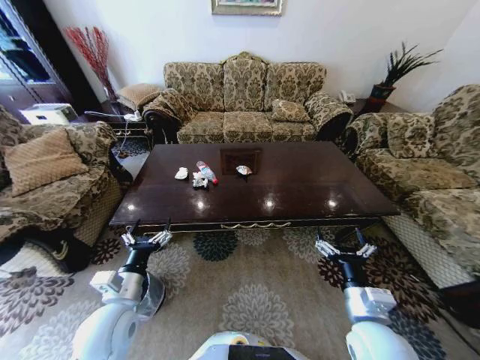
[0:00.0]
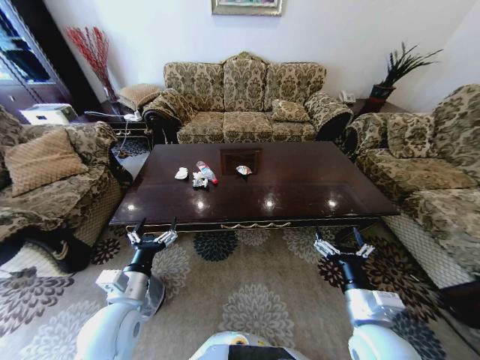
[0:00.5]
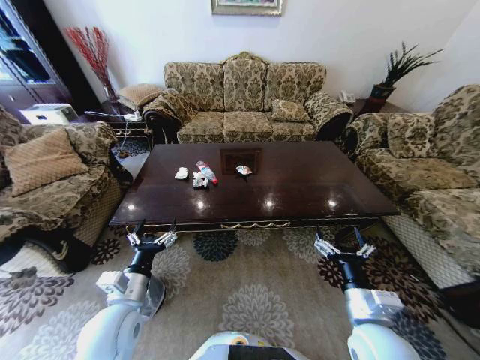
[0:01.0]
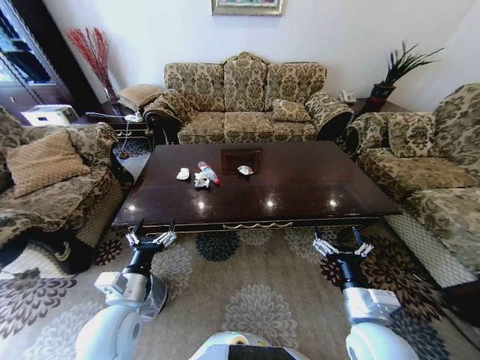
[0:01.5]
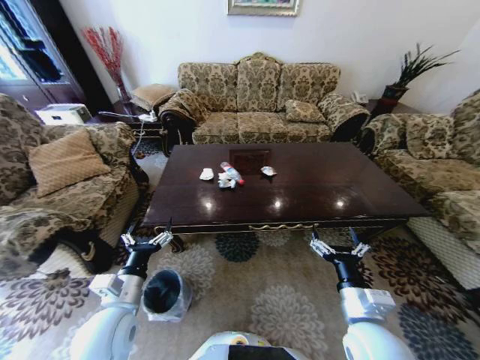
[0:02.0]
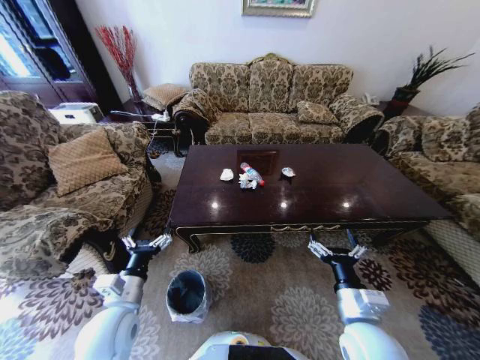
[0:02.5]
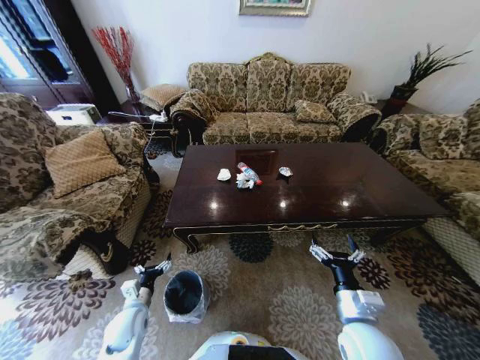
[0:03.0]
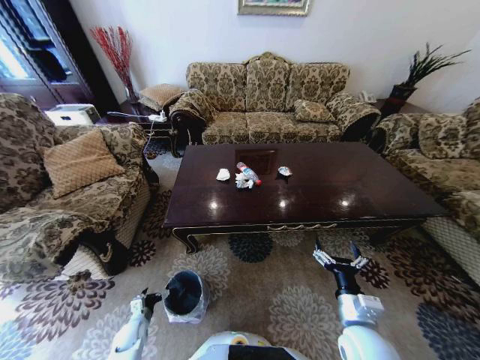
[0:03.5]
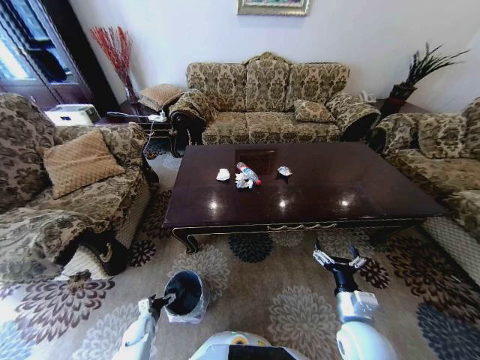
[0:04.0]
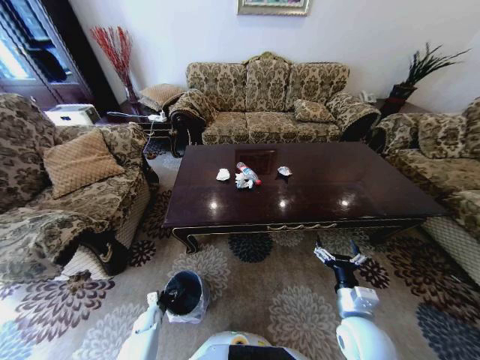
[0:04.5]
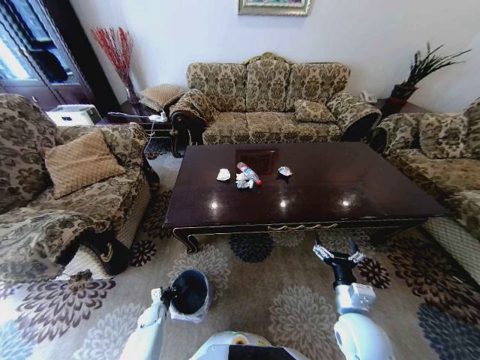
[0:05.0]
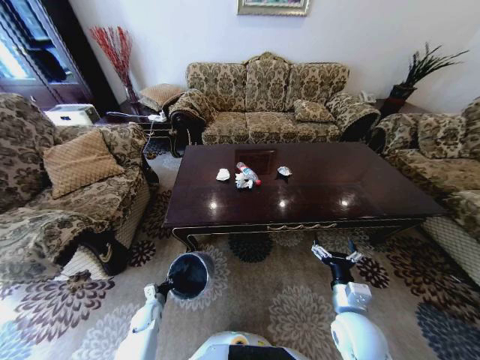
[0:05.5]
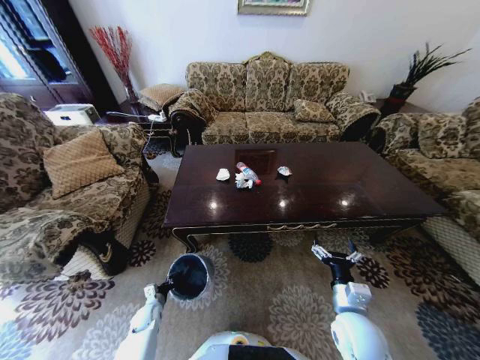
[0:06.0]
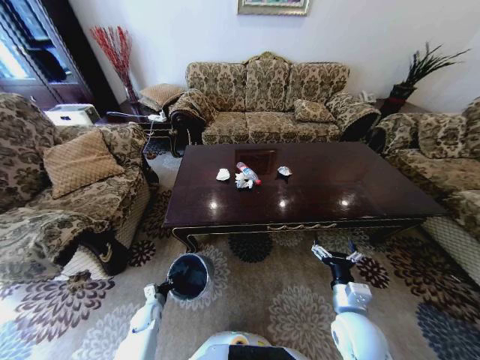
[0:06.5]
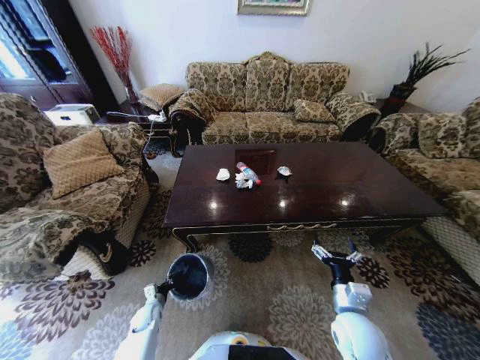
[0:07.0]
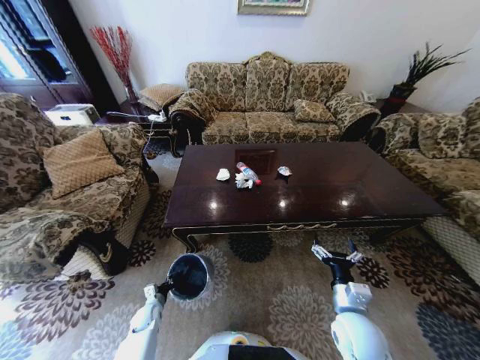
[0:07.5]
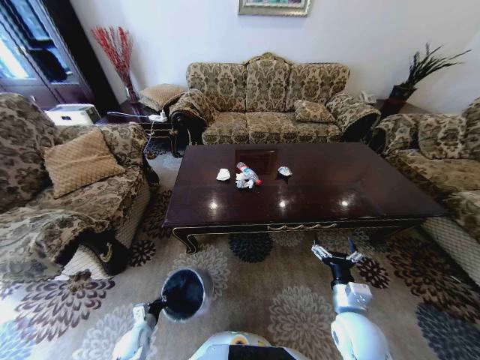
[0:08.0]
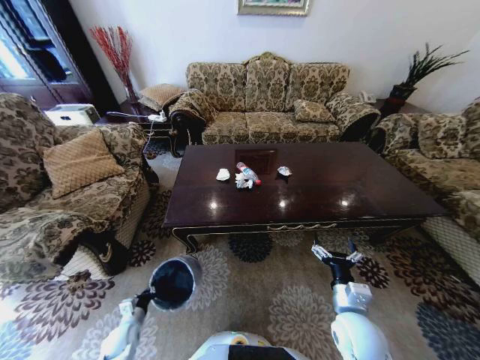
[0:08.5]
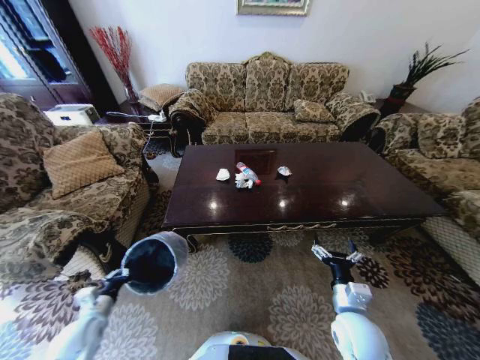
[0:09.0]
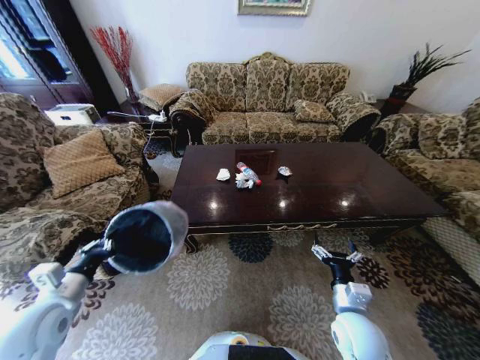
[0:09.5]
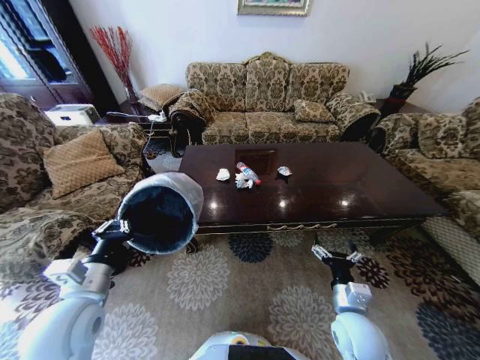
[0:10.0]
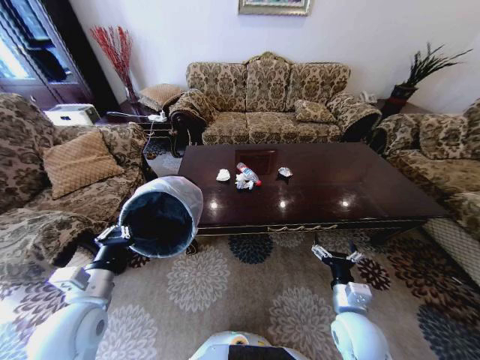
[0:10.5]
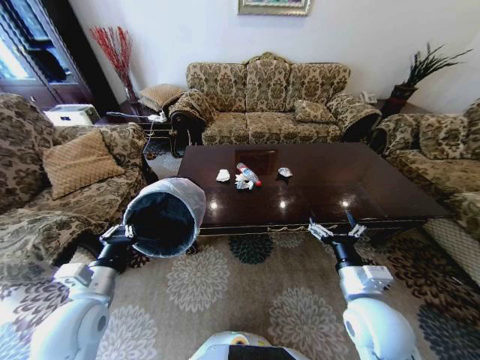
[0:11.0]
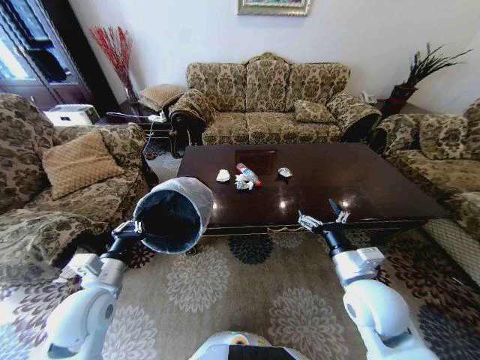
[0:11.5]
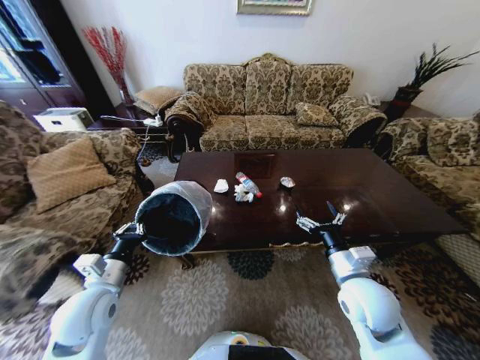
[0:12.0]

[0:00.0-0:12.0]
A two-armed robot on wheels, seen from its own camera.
Task of the whole recording: Move to the front of the table and place the trash on the table into the trash bin.
0:02.0 to 0:04.0: The left gripper shifts approximately 35 cm downward. Meanwhile the right gripper goes roughly 5 cm downward.
0:04.0 to 0:06.0: The left gripper changes place by roughly 5 cm, and closes up.
0:06.0 to 0:08.0: The left gripper moves backward, approximately 5 cm.
0:08.0 to 0:10.0: The left gripper moves upward, about 40 cm.
0:10.0 to 0:12.0: The right gripper heads upward, covering about 10 cm. Meanwhile the left gripper ends up approximately 5 cm from where it was.

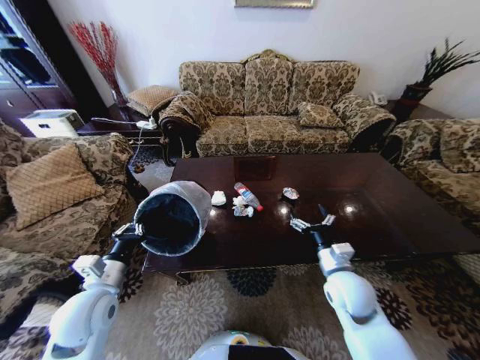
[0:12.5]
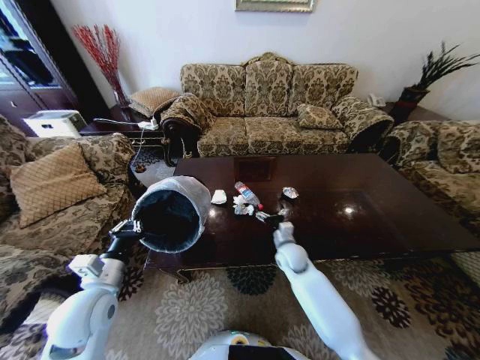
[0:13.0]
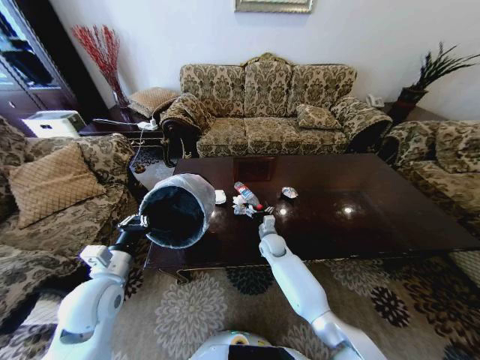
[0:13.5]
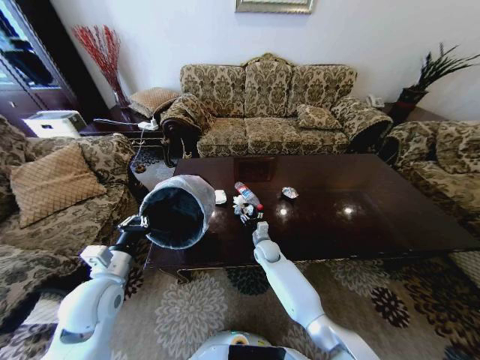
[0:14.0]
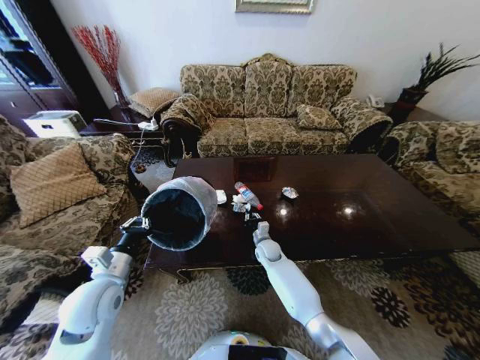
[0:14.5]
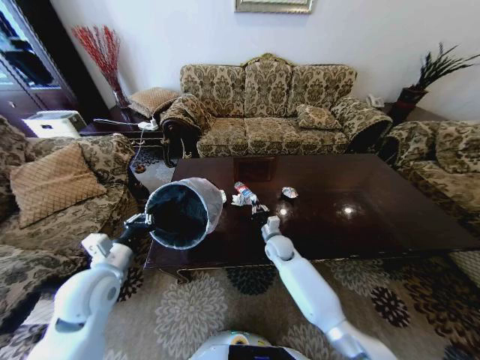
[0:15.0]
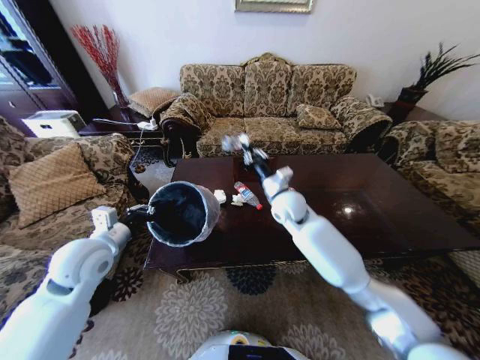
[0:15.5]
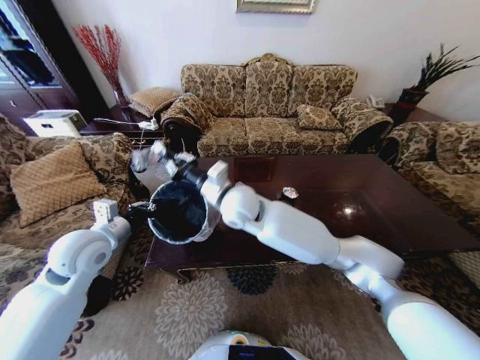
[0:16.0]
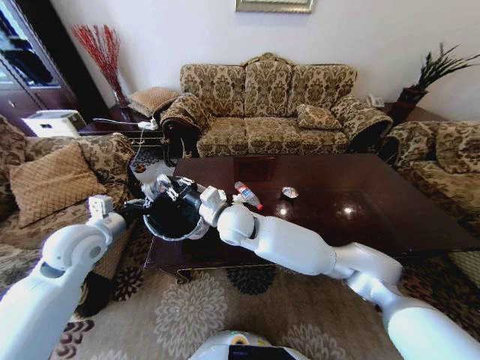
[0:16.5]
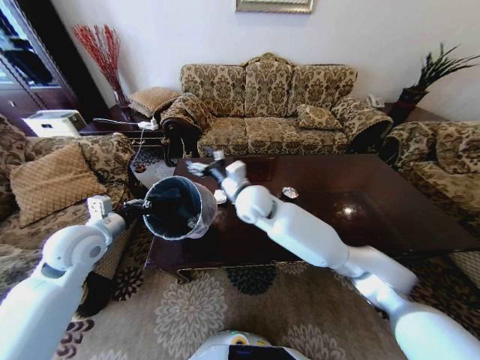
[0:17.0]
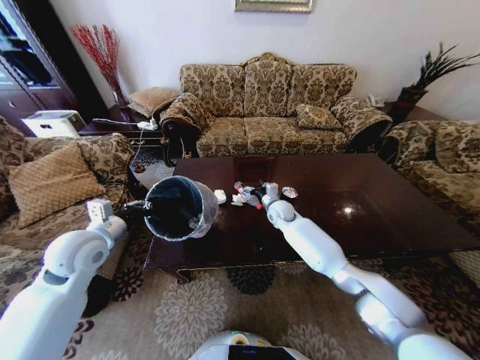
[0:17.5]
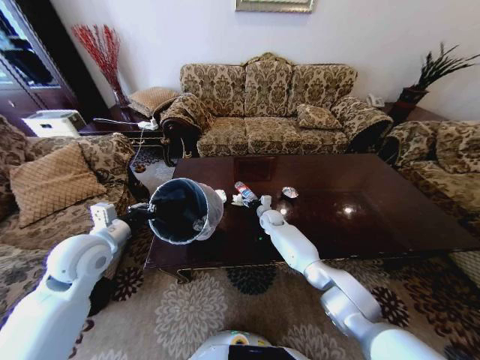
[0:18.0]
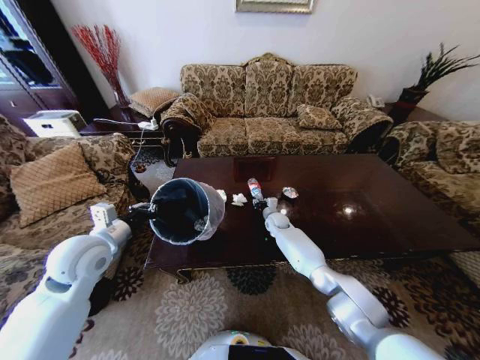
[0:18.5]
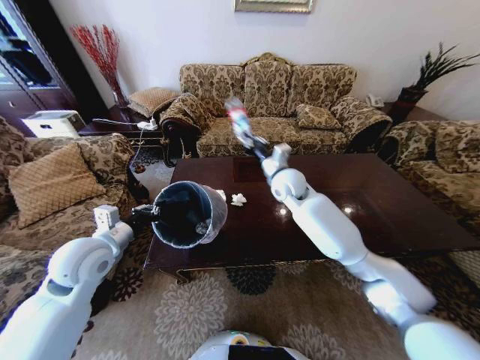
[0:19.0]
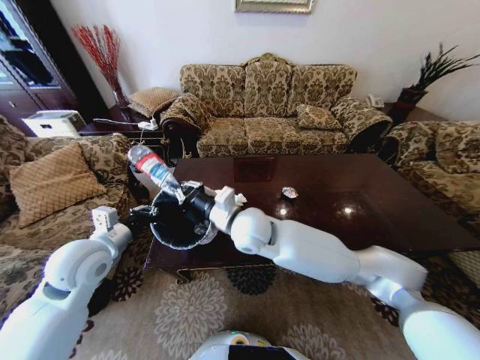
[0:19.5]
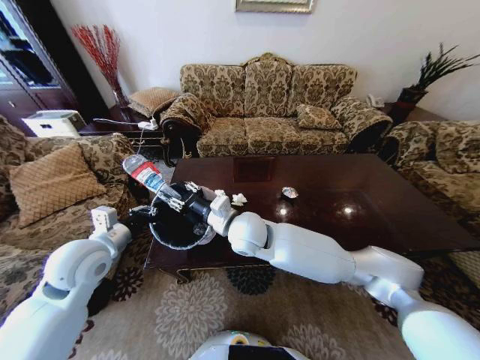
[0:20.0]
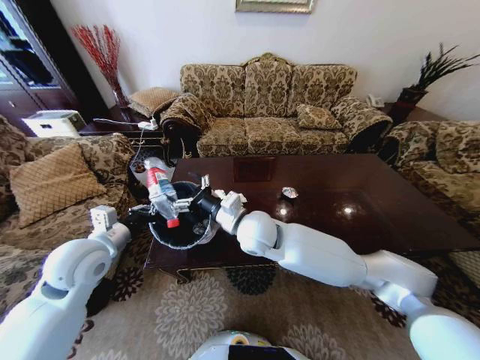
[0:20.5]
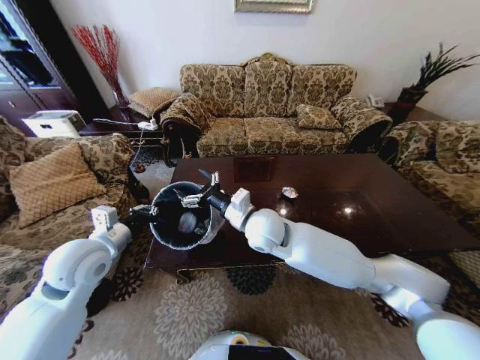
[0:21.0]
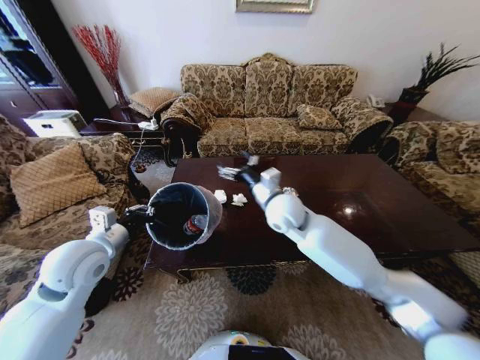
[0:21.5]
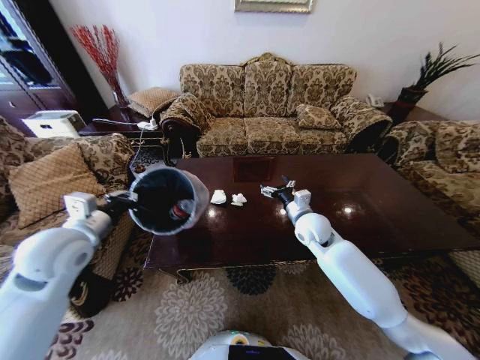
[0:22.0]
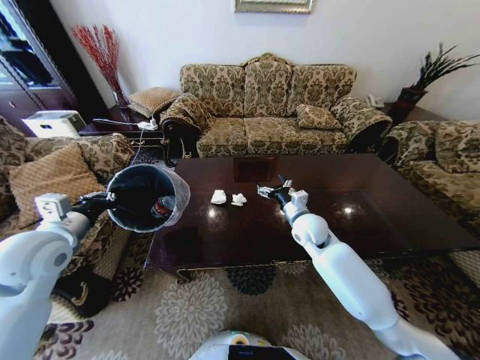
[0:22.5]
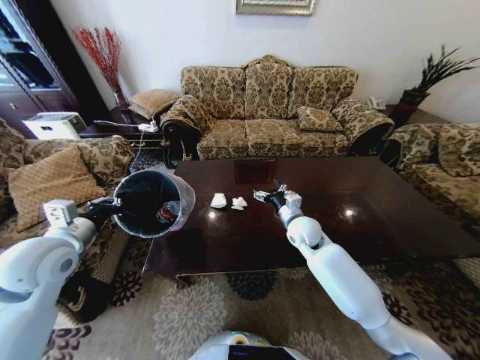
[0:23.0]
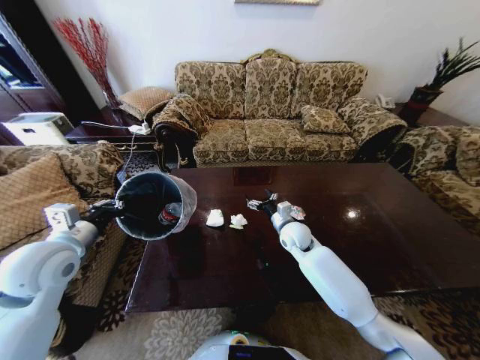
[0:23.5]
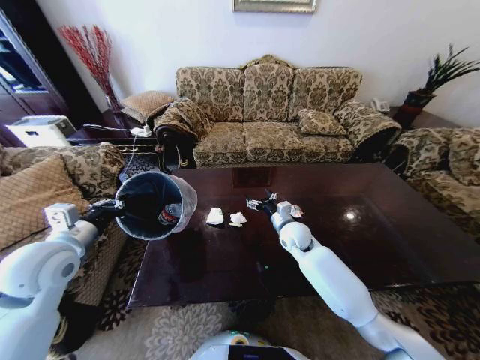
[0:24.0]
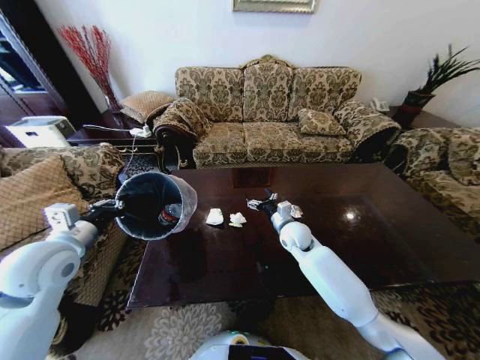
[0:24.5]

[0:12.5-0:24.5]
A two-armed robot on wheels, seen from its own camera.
Task of the whole recording: Move to the front of the table and place the trash on the table into the trash bin.
0:12.5 to 0:14.5: The right gripper shifts about 30 cm forward, downward and to the left, and closes.
0:14.5 to 0:16.5: The right gripper travels upward and to the left by some 30 cm, while the left gripper shifts roughly 10 cm upward and forward.
0:16.5 to 0:18.5: The right gripper travels downward, to the right and forward by some 35 cm, and opens, then closes again.
0:18.5 to 0:20.5: The right gripper heads upward, backward and to the left, covering approximately 35 cm, and opens up.
0:20.5 to 0:22.5: The right gripper moves to the right and downward, some 20 cm. Meanwhile the left gripper goes about 5 cm to the left.
0:22.5 to 0:24.5: The right gripper heads downward, covering approximately 5 cm.

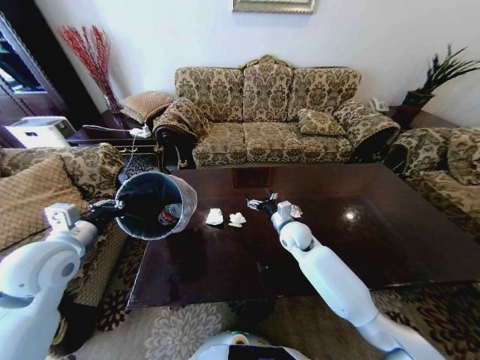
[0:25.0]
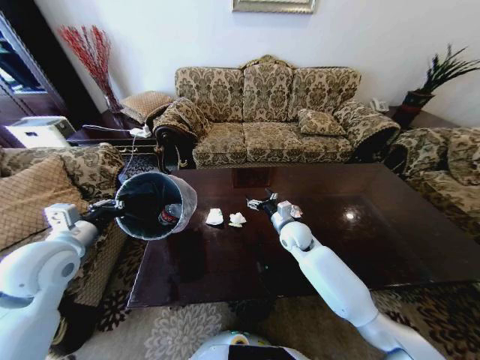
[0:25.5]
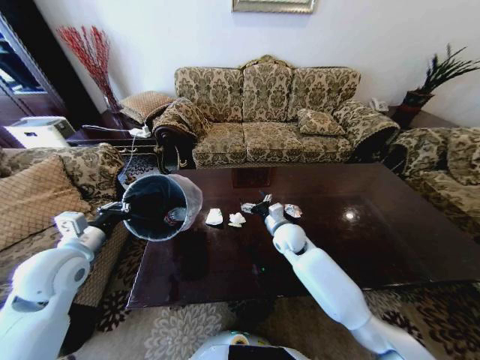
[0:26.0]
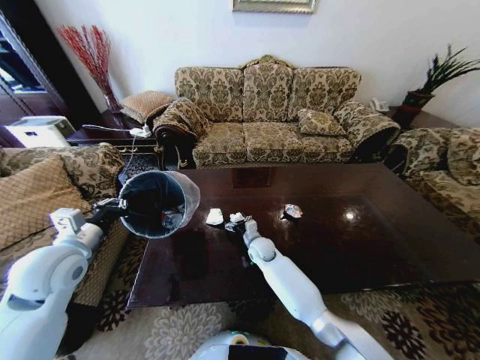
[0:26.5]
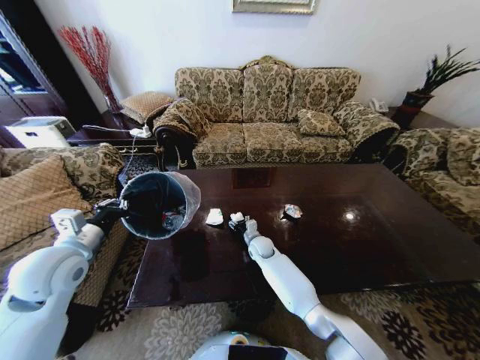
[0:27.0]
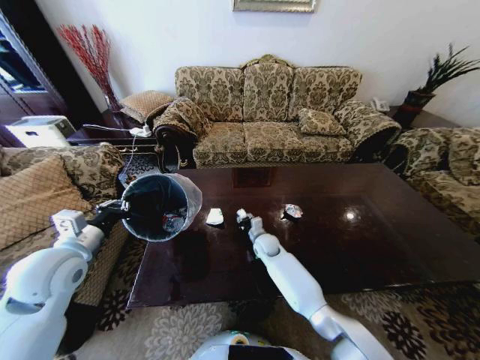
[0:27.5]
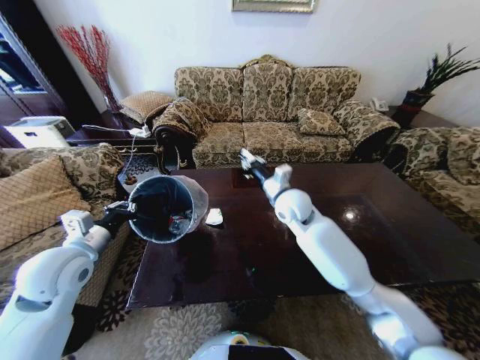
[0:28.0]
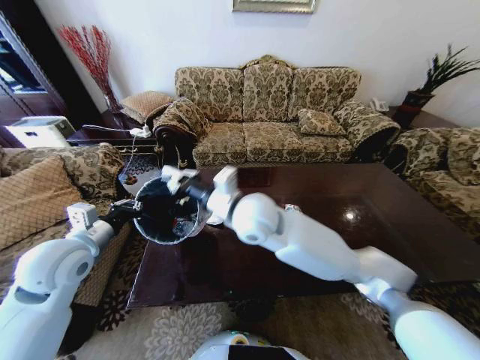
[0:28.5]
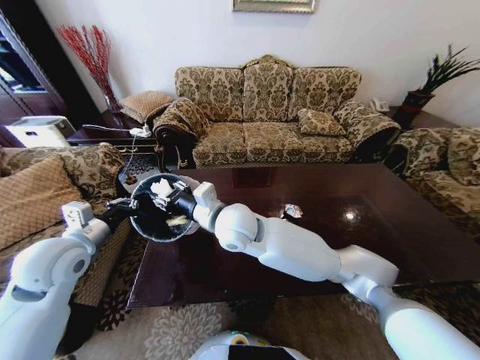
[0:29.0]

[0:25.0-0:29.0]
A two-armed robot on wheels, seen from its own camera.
Task of the whole recording: Move to the front of the table and place the trash on the table into the trash bin.
0:25.0 to 0:27.0: The right gripper shifts some 15 cm downward and to the left.
0:27.0 to 0:29.0: The right gripper shifts roughly 30 cm upward, and closes and opens again.
